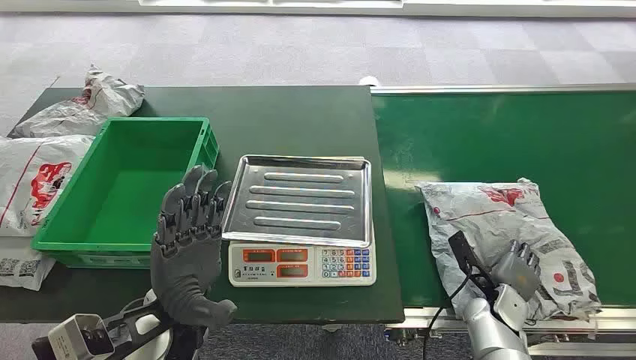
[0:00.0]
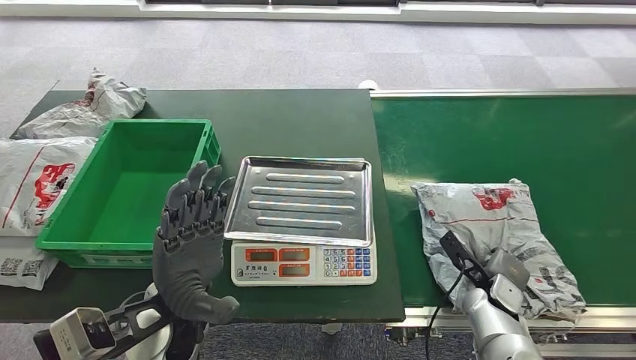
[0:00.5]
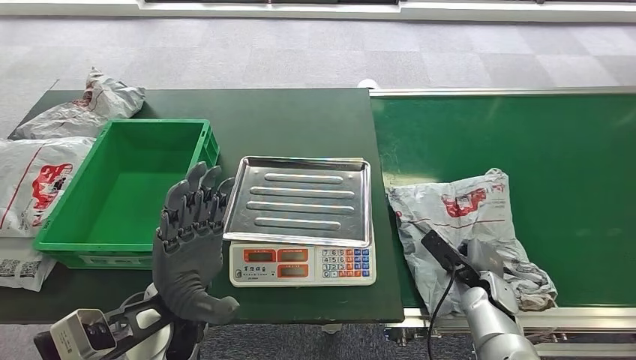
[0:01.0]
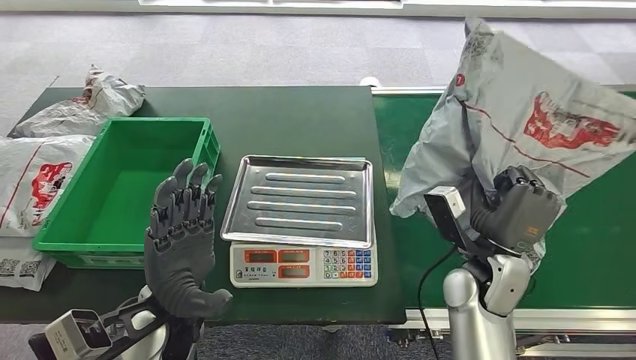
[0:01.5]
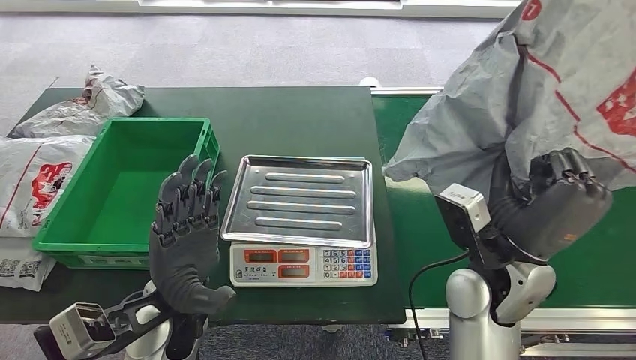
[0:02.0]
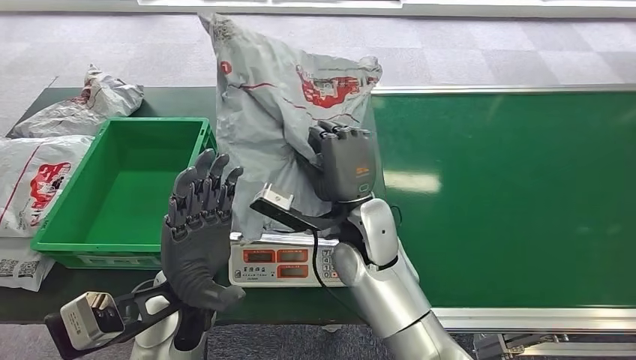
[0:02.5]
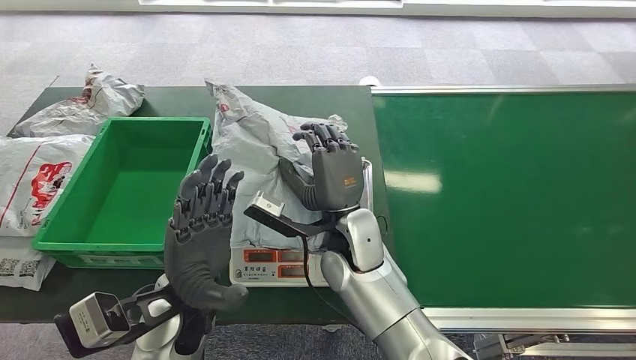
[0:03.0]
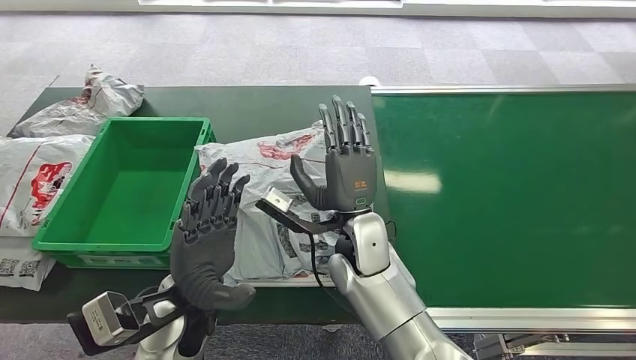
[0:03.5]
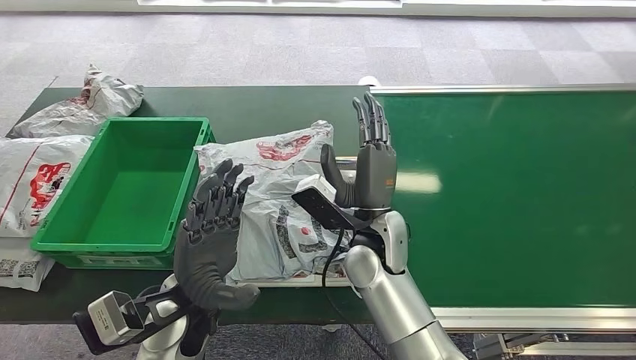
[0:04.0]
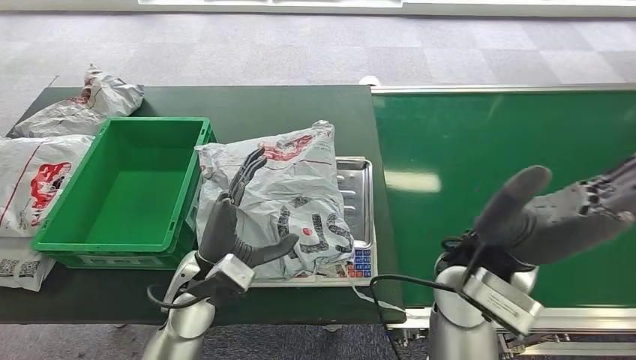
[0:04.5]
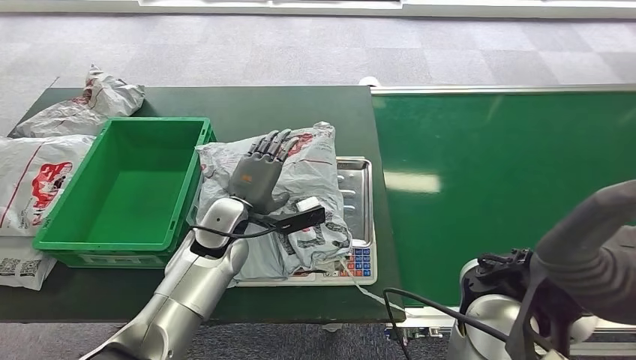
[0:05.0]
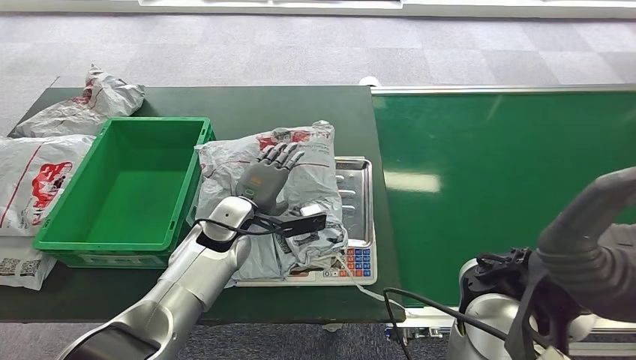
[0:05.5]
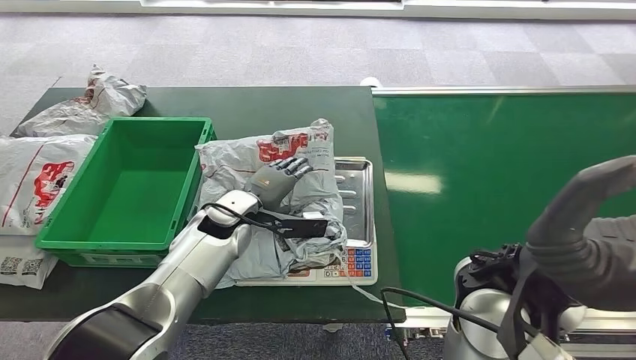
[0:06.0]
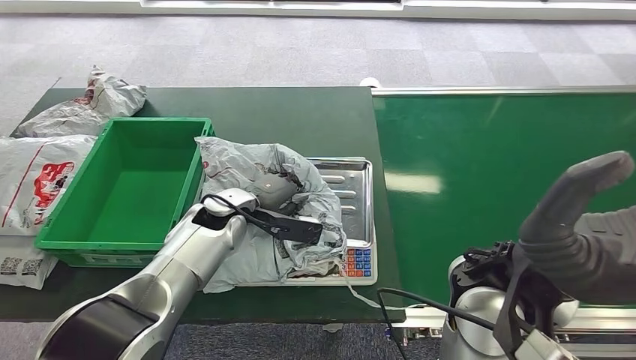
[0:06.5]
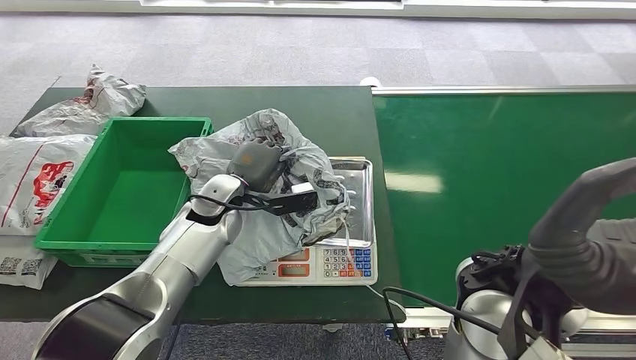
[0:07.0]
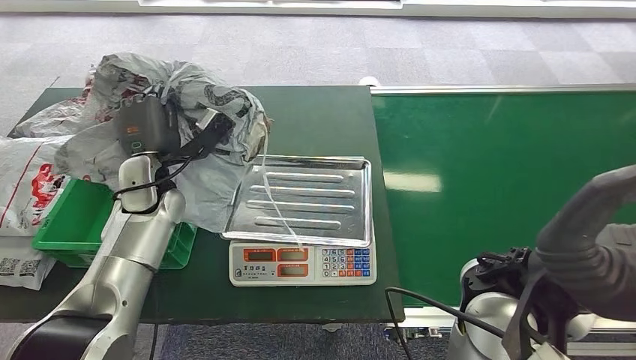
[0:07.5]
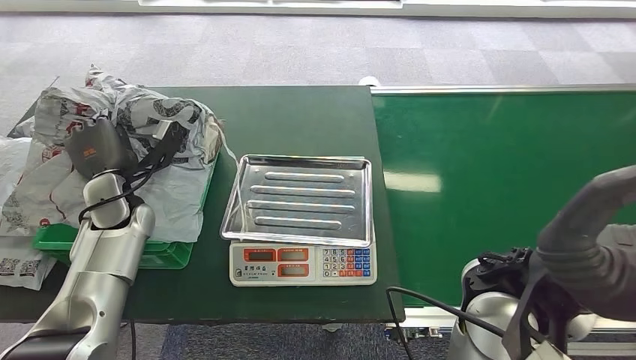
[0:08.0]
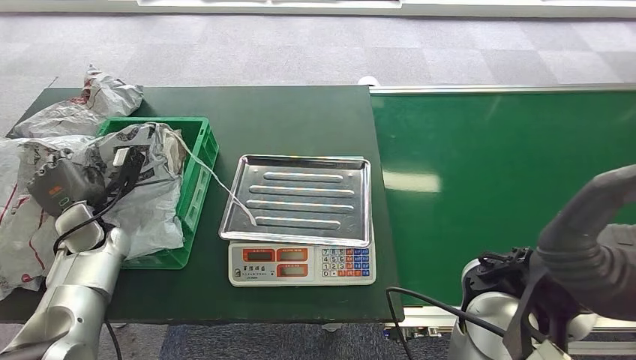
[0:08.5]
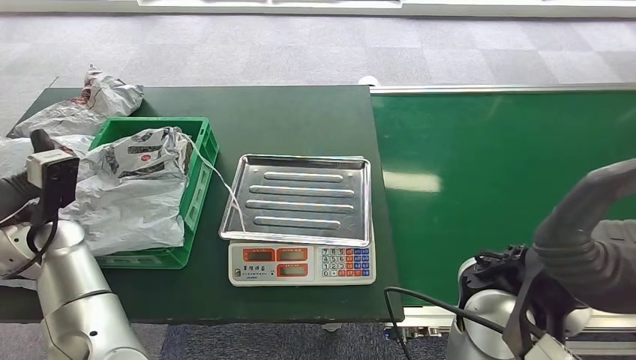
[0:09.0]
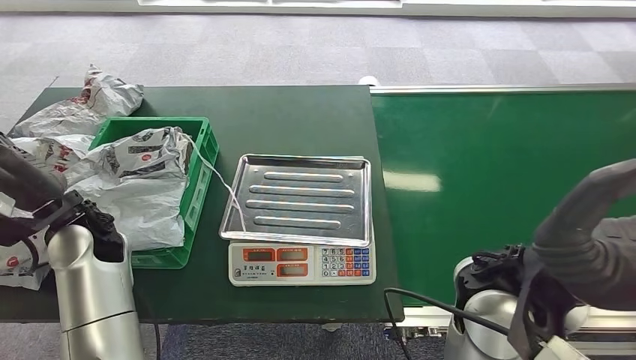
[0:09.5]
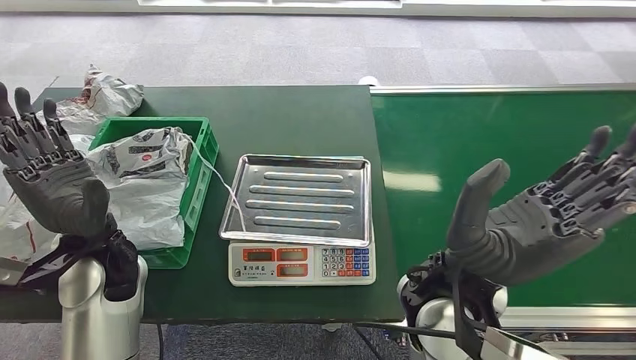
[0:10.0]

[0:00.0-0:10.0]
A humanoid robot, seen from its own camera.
Step, 0:00.0 to 0:01.5: Pick up the package from the conveyor belt.
Step, 0:02.0 to 0:04.0: Place the package onto the inbound machine.
Step, 0:04.5 to 0:07.5: Pick up the package from the inbound machine.
Step, 0:08.5 to 0:10.0: Place the package into the parcel locker.
